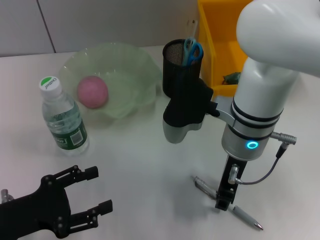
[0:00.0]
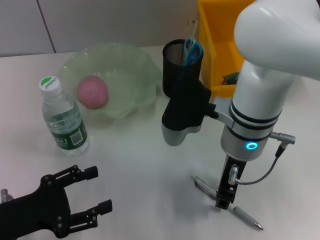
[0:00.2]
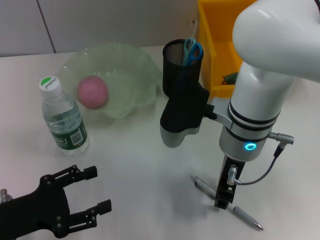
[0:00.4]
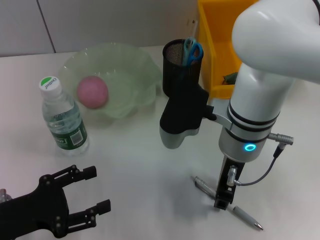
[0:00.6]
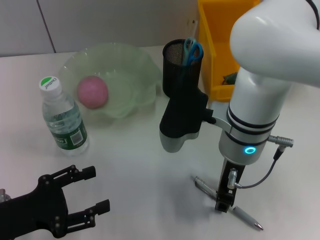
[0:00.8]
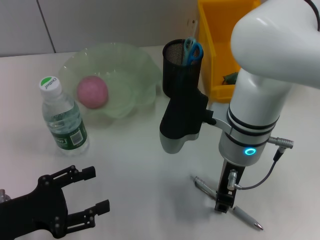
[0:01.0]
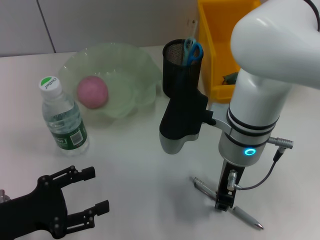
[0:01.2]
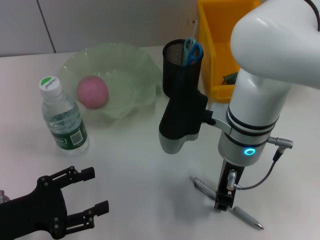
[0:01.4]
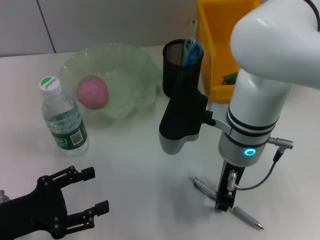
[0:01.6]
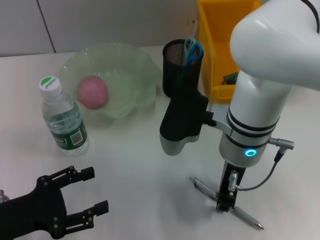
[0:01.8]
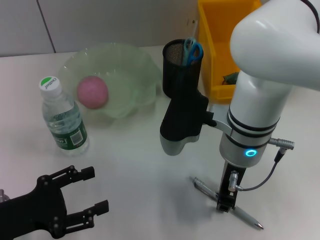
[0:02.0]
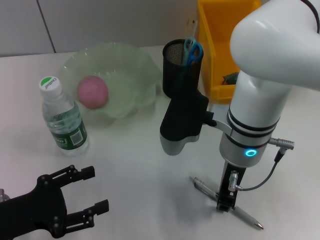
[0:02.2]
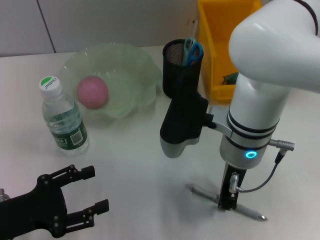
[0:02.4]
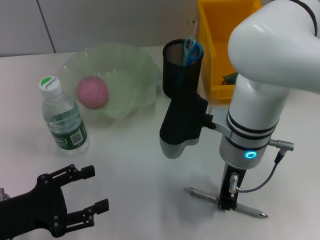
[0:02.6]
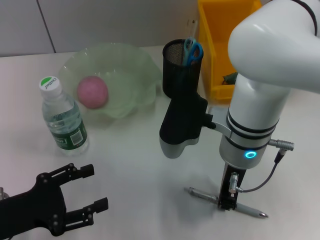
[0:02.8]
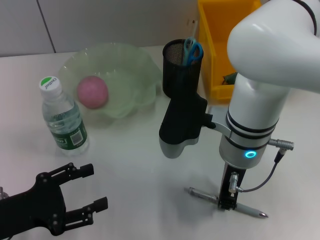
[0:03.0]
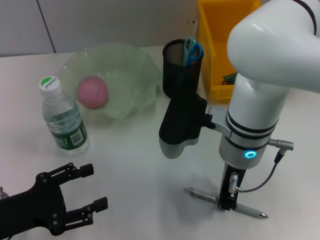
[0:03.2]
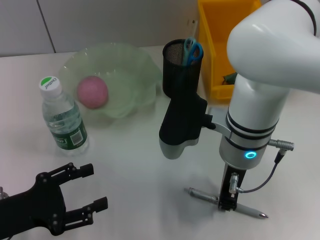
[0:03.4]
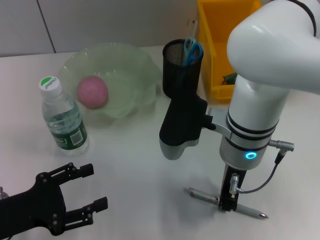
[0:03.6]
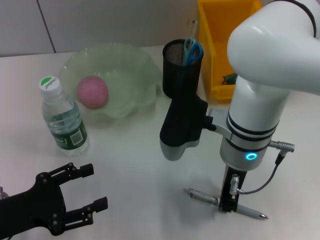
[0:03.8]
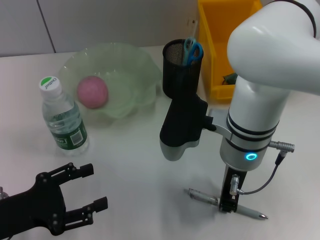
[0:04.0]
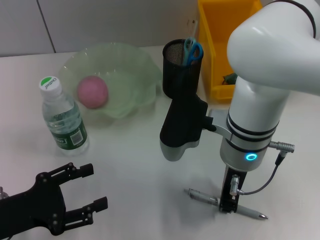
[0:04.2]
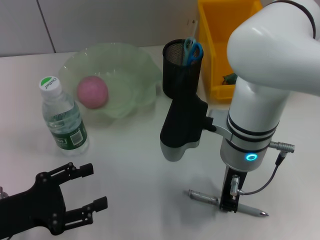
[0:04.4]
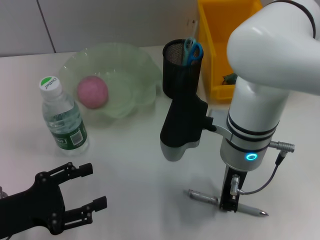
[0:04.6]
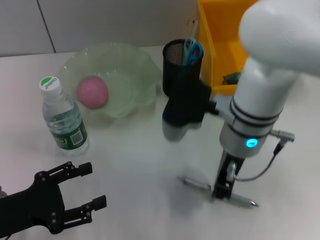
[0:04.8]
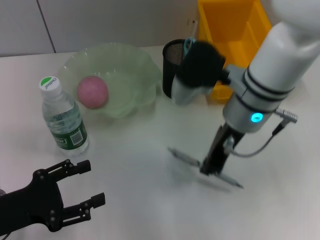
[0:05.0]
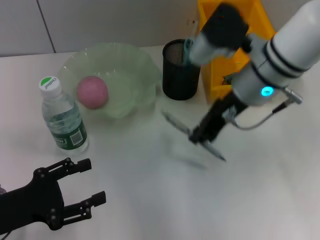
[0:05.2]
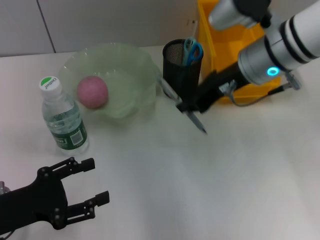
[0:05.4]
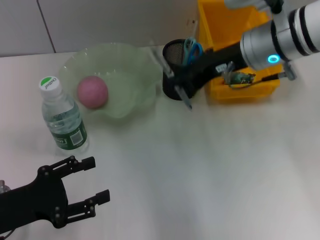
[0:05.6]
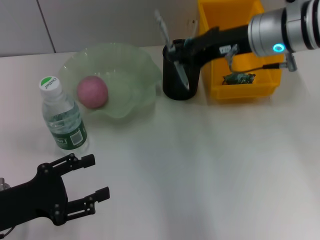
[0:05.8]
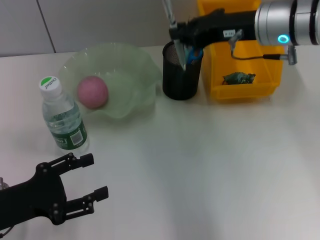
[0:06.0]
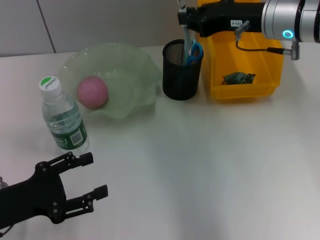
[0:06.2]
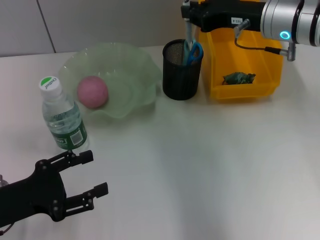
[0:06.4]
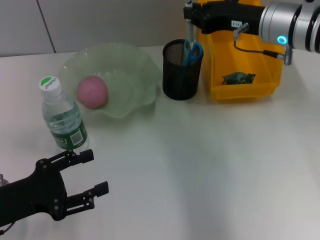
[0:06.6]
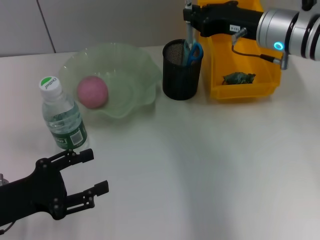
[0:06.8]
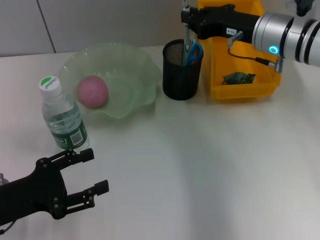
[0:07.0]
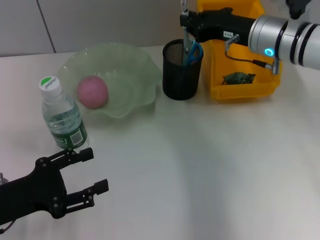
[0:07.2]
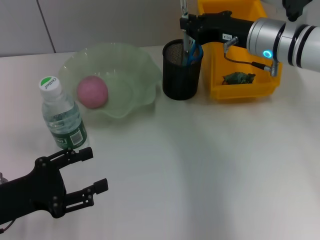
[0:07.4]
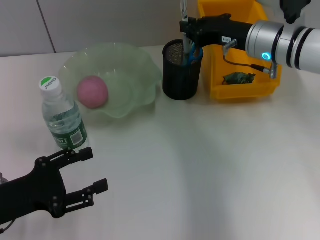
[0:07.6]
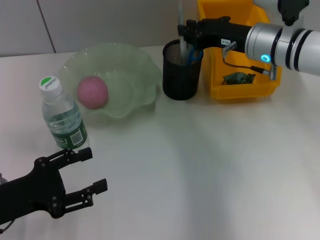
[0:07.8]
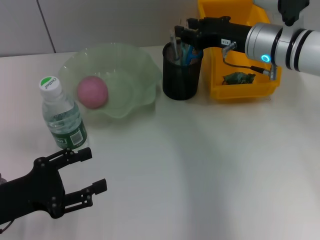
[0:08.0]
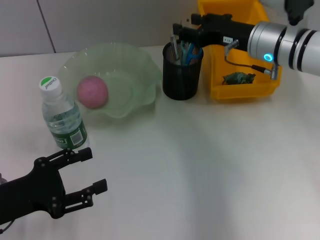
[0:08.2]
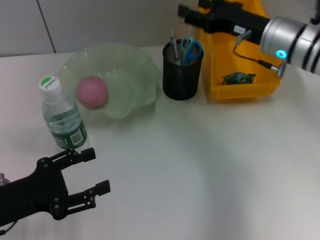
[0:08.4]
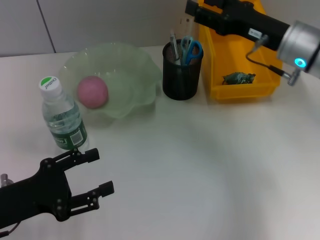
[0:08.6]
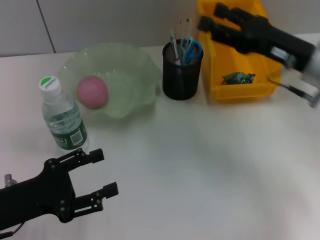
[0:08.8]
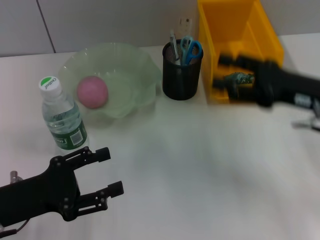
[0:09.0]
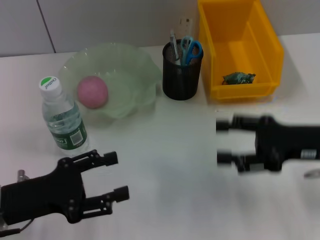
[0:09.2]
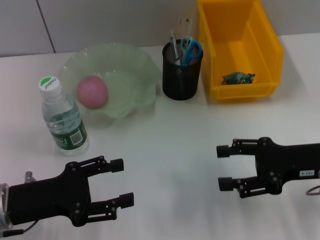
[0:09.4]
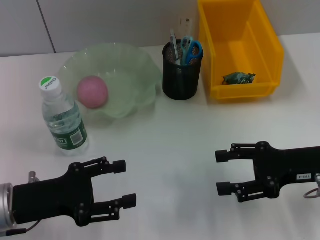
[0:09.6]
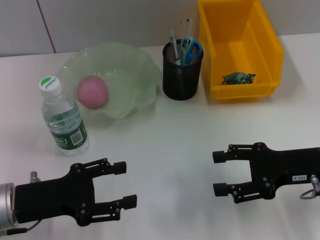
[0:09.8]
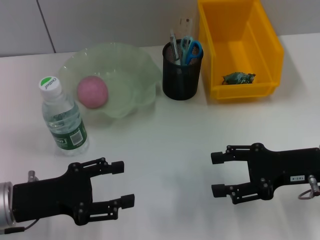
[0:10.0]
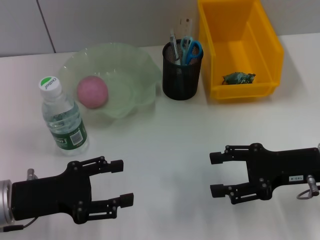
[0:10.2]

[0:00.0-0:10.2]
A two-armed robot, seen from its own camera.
Step, 0:00.0 to 0:04.4: Grab the gray spring-action pen with the right hand.
Step, 0:04.6 to 0:07.8: Place the gray spring-action pen into the pen holder with the right hand.
0:00.0 to 0:03.0: Both grippers stay about where they are.
0:03.0 to 0:04.4: Both grippers stay put.
0:04.4 to 0:05.8: The right gripper is displaced forward, to the right and upward by approximately 15 cm.
0:05.8 to 0:07.2: The right gripper heads downward, covering some 5 cm.
0:07.2 to 0:08.8: The right gripper goes roughly 10 cm backward and to the right, and opens its fingers.
0:08.8 to 0:10.2: The right gripper shifts some 10 cm backward and downward.
